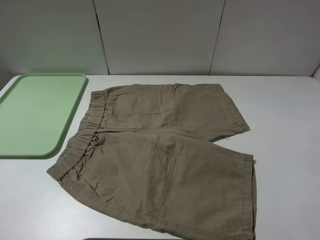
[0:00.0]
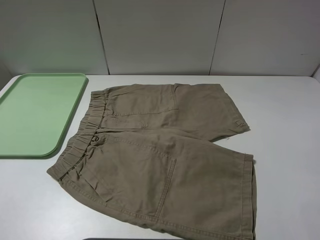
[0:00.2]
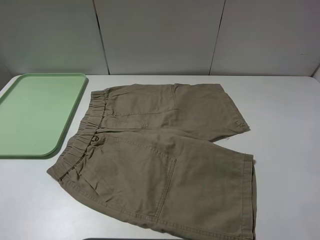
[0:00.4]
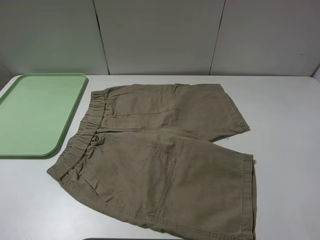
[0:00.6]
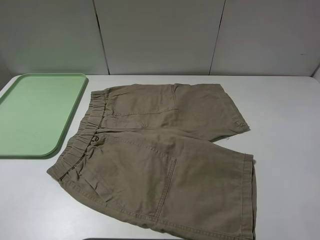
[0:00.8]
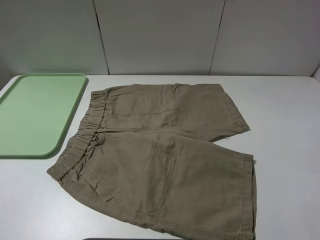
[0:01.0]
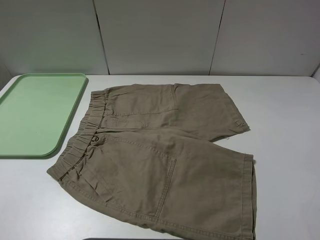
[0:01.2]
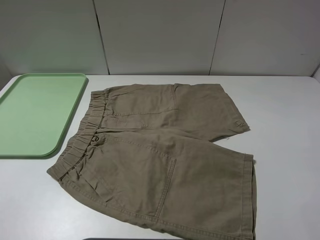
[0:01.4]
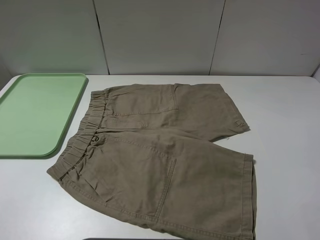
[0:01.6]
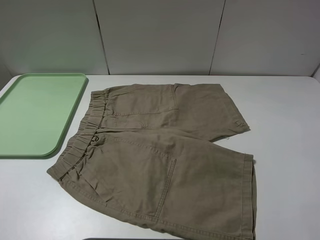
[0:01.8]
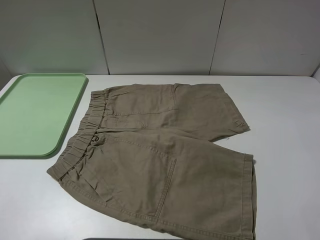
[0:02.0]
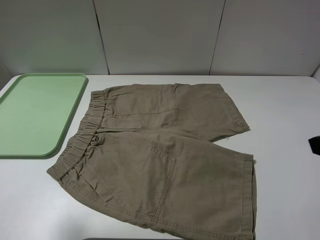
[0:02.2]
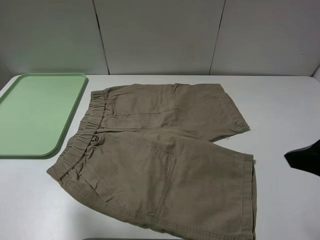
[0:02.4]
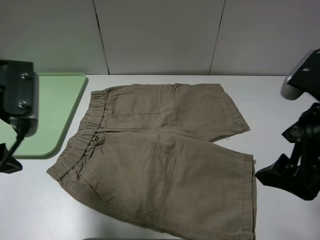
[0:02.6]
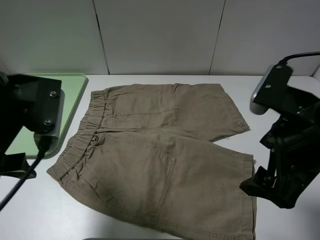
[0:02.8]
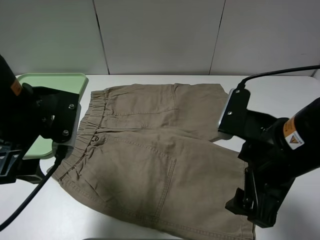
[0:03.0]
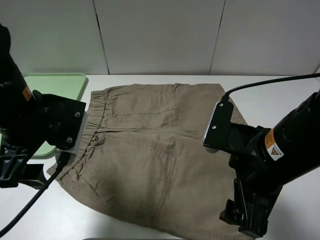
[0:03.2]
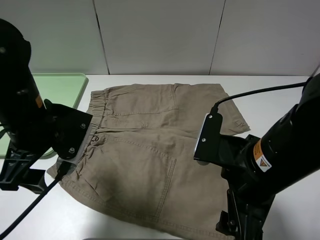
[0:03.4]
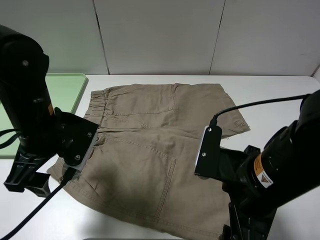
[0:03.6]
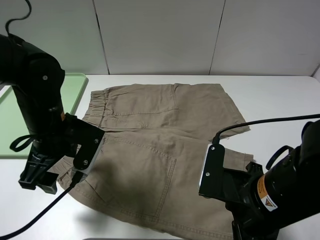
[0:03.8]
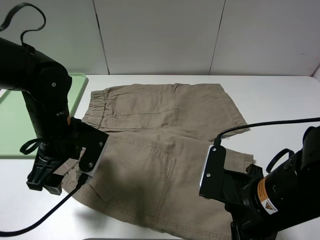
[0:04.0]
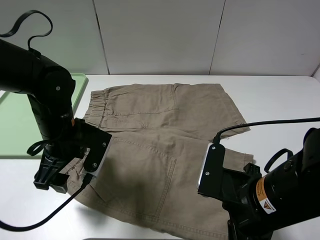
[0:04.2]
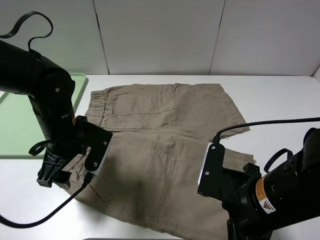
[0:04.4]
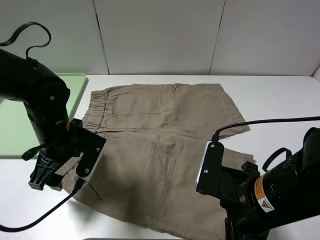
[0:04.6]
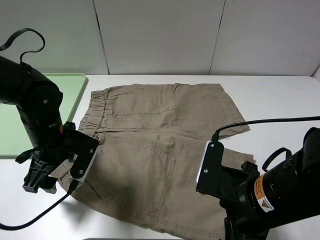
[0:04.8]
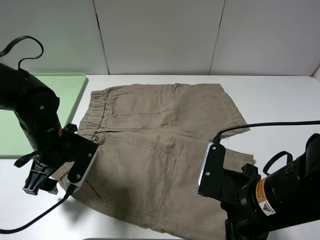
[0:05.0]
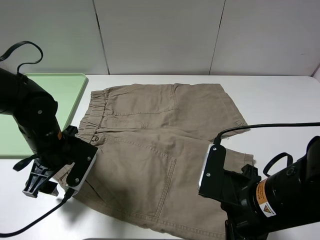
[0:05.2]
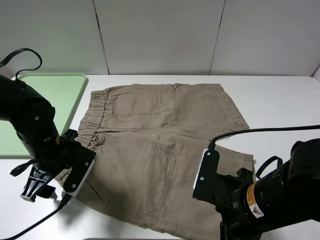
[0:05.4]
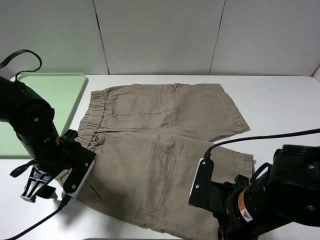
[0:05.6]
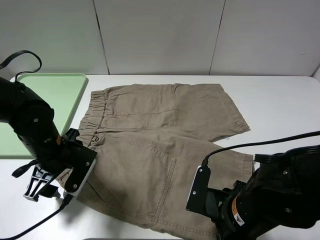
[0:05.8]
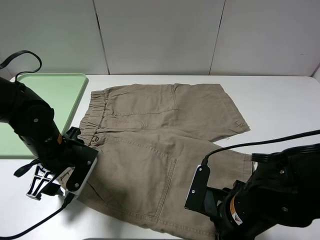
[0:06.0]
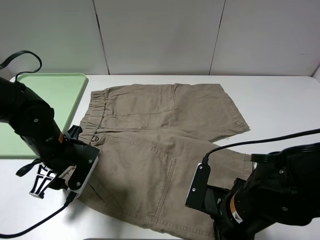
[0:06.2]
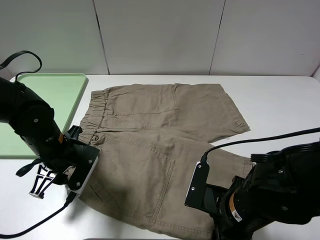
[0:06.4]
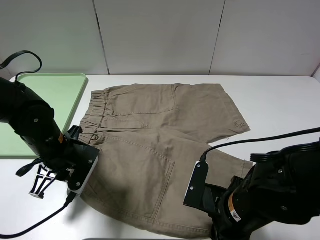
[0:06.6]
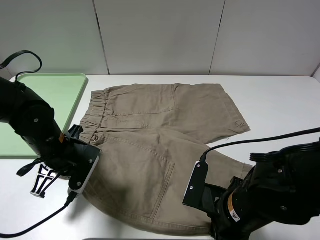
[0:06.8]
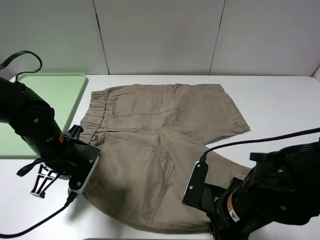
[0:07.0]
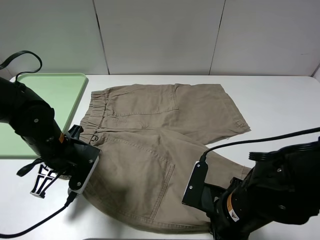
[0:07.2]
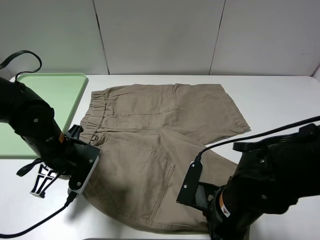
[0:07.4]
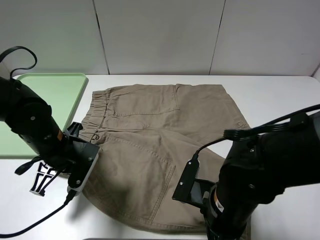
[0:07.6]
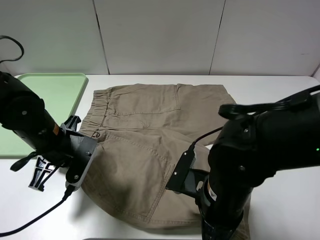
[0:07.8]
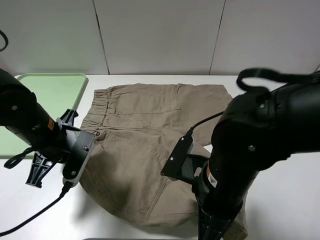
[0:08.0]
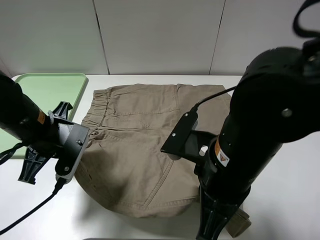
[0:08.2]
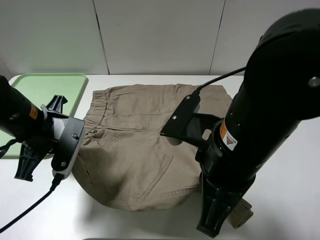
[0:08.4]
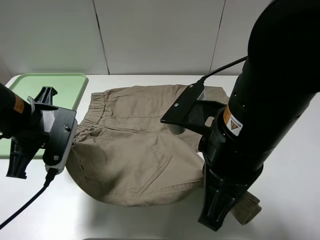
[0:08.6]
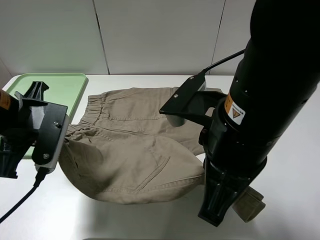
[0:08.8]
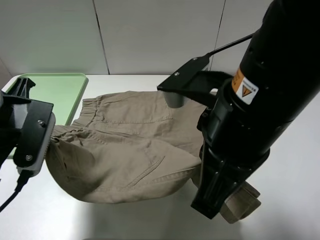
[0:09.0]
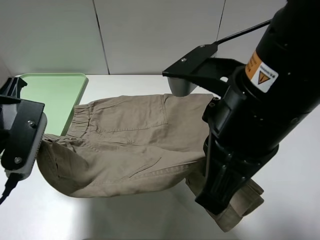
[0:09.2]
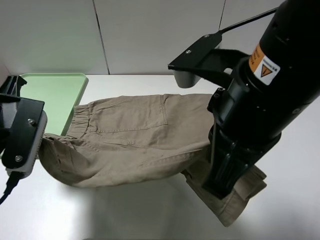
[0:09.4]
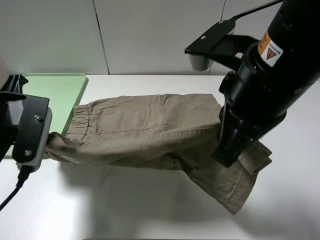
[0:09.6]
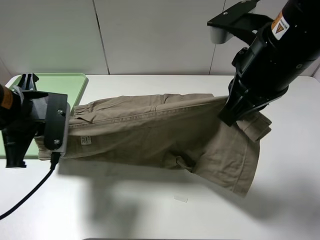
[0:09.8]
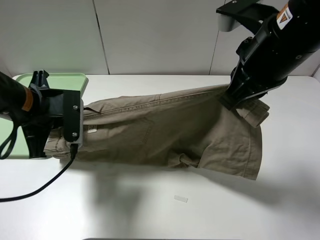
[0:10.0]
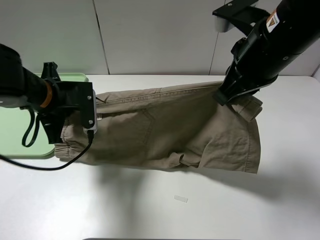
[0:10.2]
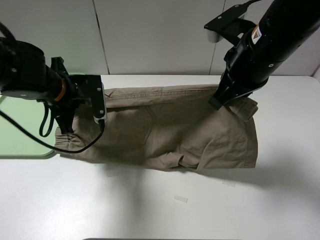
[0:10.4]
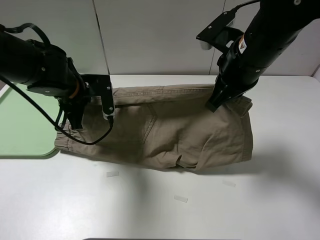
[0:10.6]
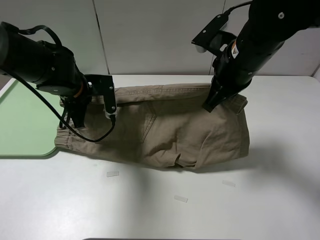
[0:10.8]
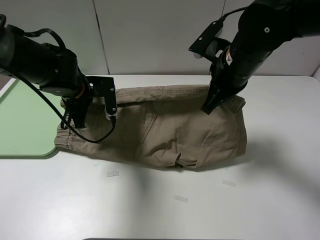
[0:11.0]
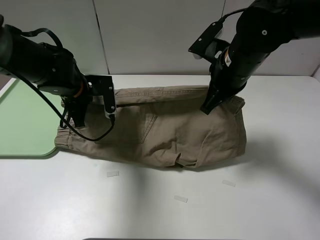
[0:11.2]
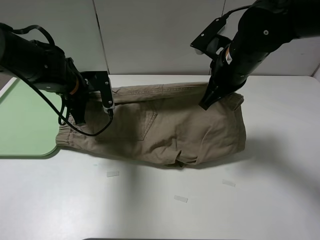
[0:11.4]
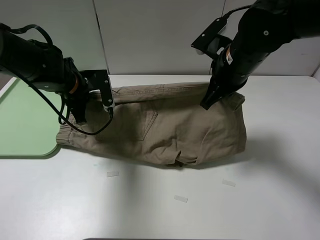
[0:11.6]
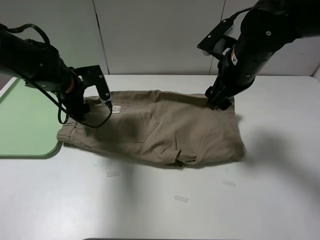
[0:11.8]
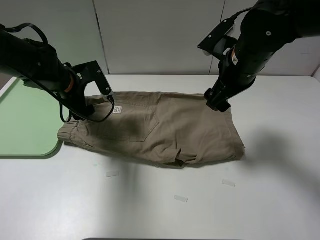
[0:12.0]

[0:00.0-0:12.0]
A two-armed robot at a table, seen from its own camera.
Task of the whole recording: fold the khaki jeans in half with two grippers, then fold them in half again, and use the left claw to place the folded fold khaki jeans on the tray.
Step, 0:00.0 to 0:06.8: Grasp the khaki trousers with the left gripper.
Step, 0:07.0 to 0:11.8: Fold the khaki trousers upwards with the left gripper.
0:01.6 to 0:03.0: The left gripper shifts approximately 25 cm forward and to the right, while the right gripper travels to the left, forward and downward by approximately 20 cm.
0:03.0 to 0:04.4: The right gripper is displaced downward by roughly 5 cm, while the left gripper moves downward, roughly 10 cm.
0:04.4 to 0:06.0: The right gripper heads downward, covering roughly 5 cm.
0:06.0 to 0:07.6: The right gripper closes, while the left gripper closes up.
0:07.6 to 0:09.0: The right gripper travels upward by about 20 cm, while the left gripper heads upward, covering some 10 cm.
0:09.0 to 0:10.4: The left gripper moves forward and downward, roughly 15 cm, while the right gripper moves forward and to the right, about 15 cm.
0:10.4 to 0:12.0: The right gripper shifts by approximately 5 cm, and opens its fingers. The left gripper goes roughly 5 cm forward, and opens up.

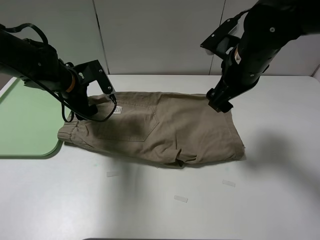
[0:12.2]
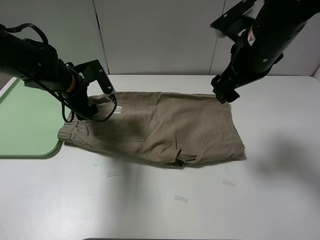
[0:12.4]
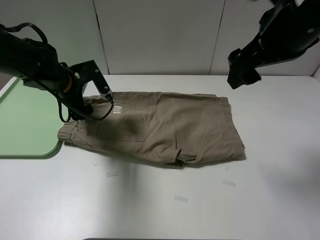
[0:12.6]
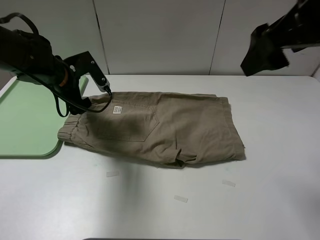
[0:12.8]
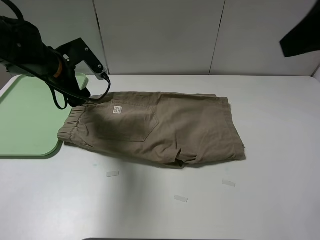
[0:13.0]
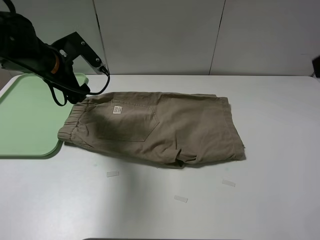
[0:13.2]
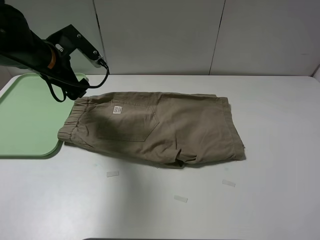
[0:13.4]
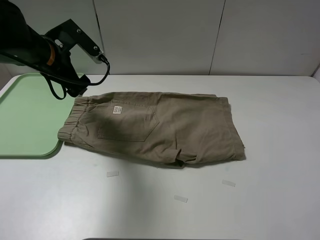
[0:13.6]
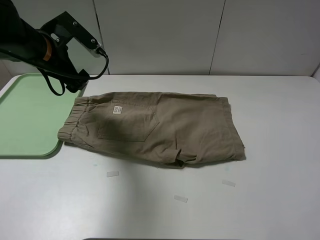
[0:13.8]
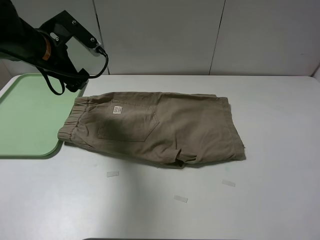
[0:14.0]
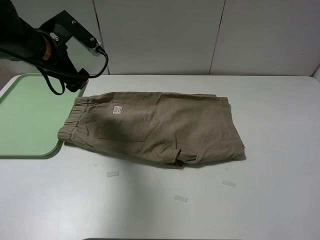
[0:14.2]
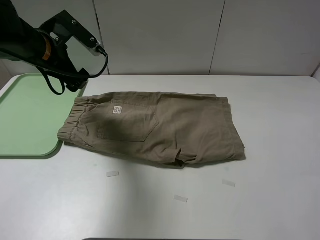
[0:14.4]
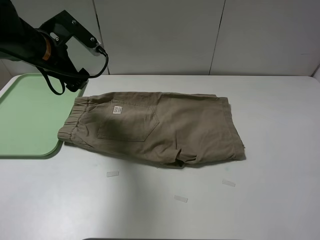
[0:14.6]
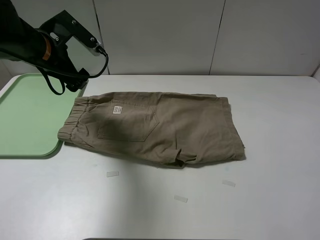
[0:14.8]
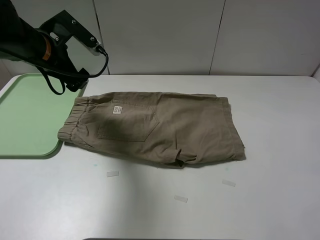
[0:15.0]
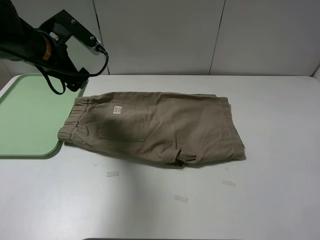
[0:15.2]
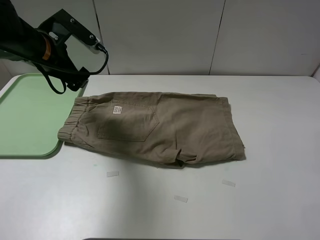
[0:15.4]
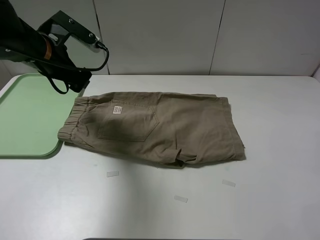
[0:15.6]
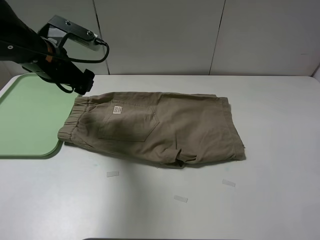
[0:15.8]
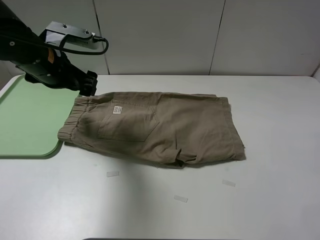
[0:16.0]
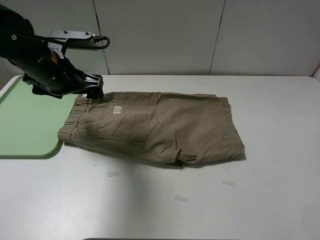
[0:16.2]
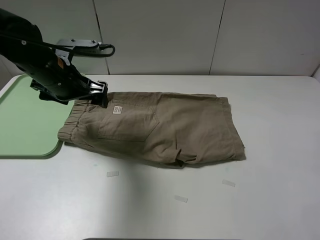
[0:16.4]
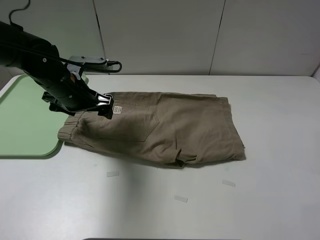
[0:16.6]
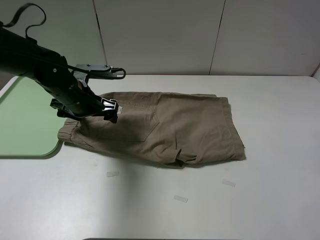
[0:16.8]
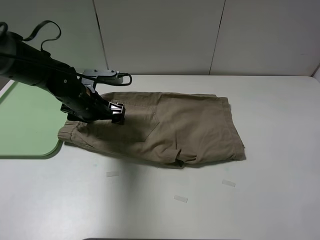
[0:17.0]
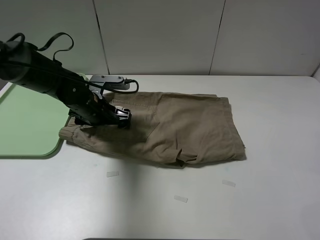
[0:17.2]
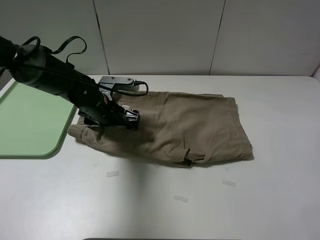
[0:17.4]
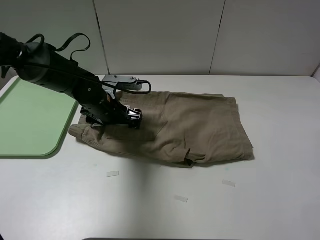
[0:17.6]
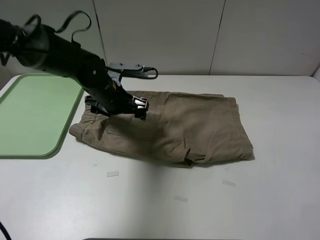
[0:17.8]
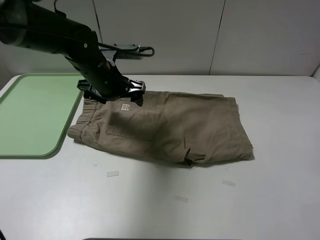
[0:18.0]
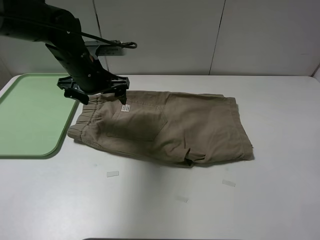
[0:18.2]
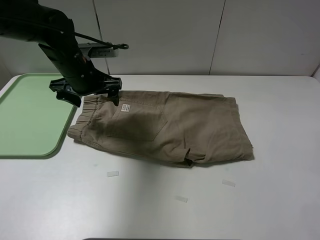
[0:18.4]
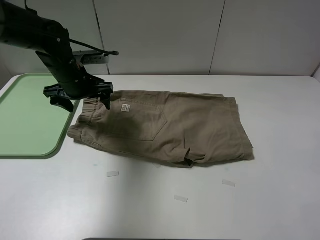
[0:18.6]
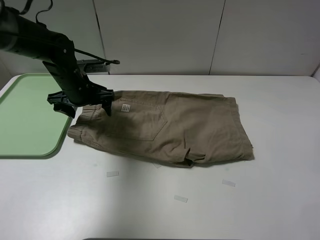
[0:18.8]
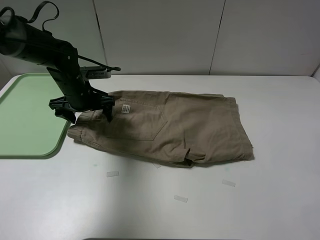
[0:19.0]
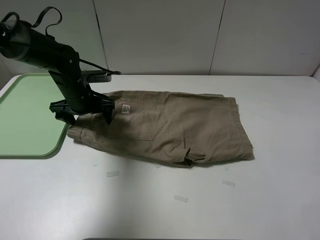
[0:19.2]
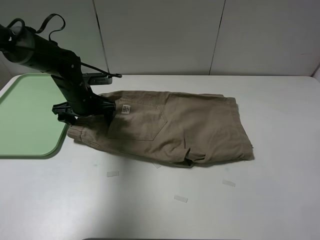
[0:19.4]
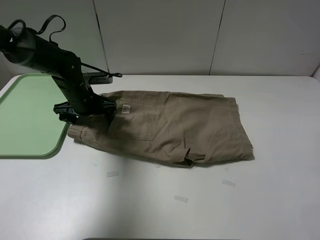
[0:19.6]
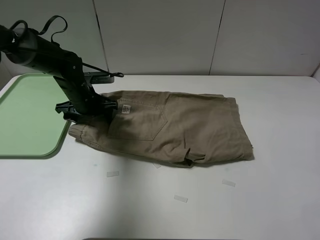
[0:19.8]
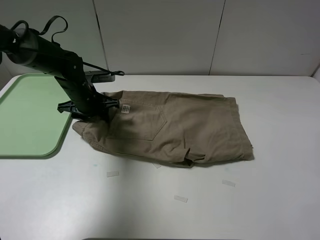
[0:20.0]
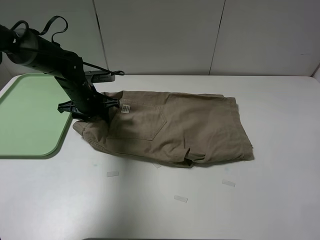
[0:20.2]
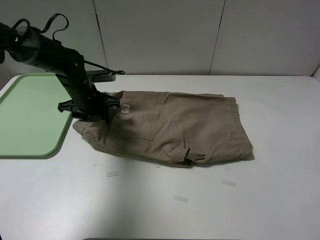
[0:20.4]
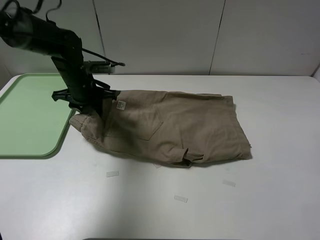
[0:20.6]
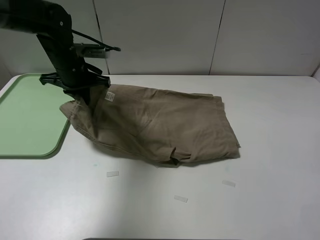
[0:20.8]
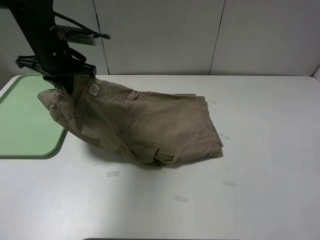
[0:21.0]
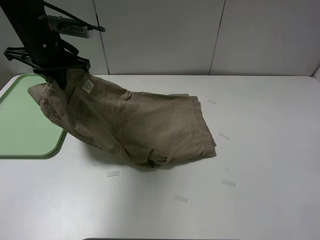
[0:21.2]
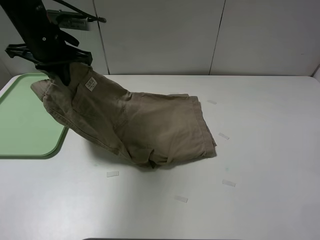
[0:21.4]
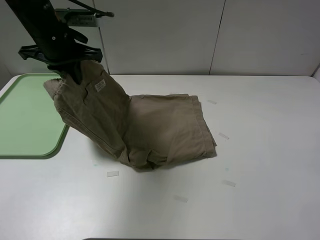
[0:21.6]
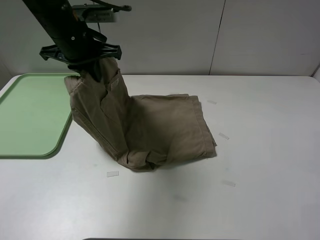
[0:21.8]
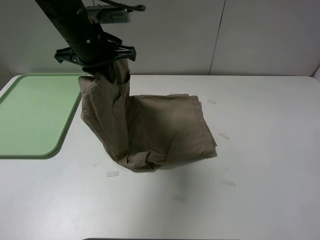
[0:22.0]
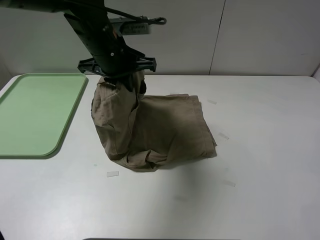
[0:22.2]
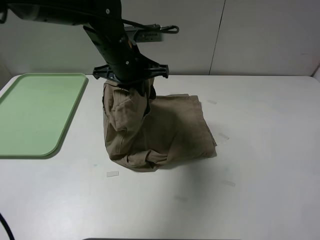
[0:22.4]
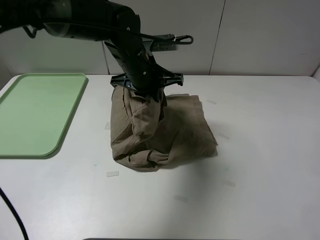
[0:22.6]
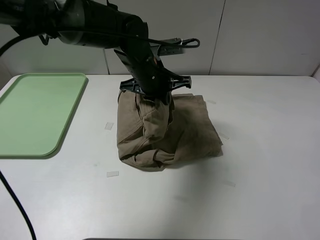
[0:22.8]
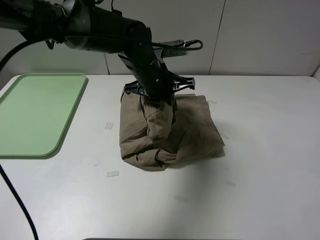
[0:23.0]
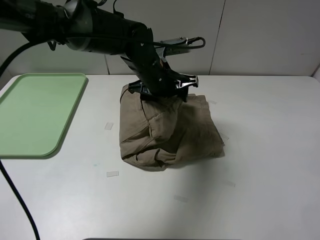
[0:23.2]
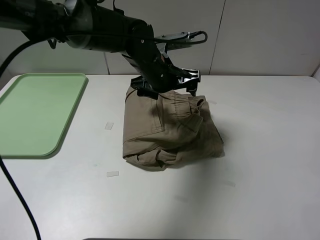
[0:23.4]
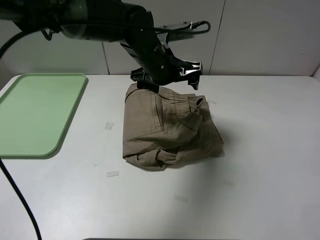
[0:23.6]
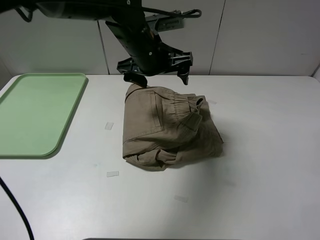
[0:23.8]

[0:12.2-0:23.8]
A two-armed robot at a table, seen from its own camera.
Task of the whole recording: fold the khaki jeans in half with two grippers, then fold them in half again, and use the left claw to place the folded fold khaki jeans on the tray.
Step, 0:12.2 to 0:20.2: Grasp the khaki trousers with the left gripper.
Step, 0:20.4 to 0:23.6: Fold the khaki trousers from left to right with the left gripper.
0:12.2 to 0:13.6: The right gripper moves backward and to the right, roughly 30 cm. The left gripper shifts about 10 cm upward.
0:15.0 to 0:16.6: The left gripper is displaced downward by approximately 5 cm.
0:16.6 to 0:18.0: The left gripper travels to the right by about 5 cm, and goes downward and returns, some 5 cm each way.
0:18.0 to 0:19.4: The left gripper moves downward and to the left, about 10 cm.
0:19.4 to 0:21.0: The left gripper moves upward, about 15 cm, and closes up.
0:21.0 to 0:22.4: The left gripper travels to the right by roughly 15 cm.
0:22.4 to 0:23.8: The left gripper opens up.
